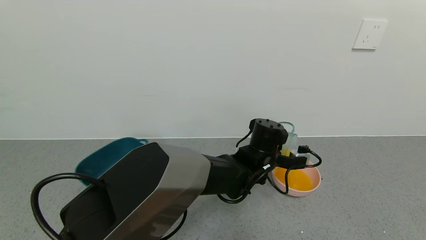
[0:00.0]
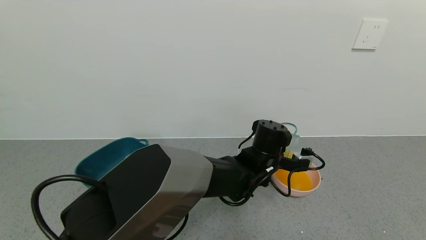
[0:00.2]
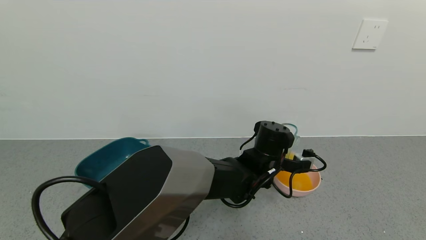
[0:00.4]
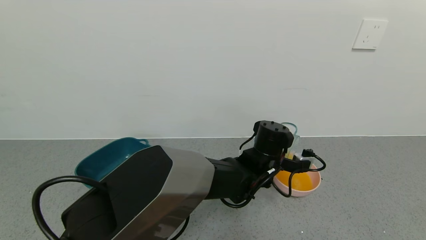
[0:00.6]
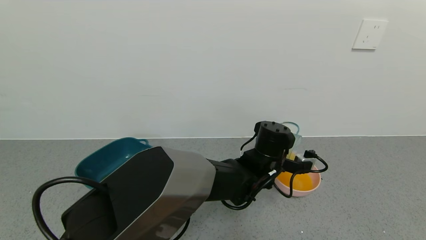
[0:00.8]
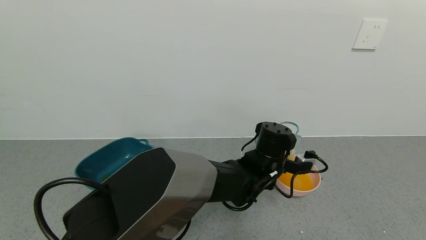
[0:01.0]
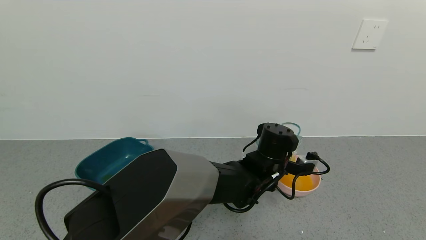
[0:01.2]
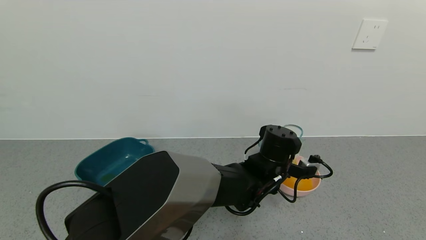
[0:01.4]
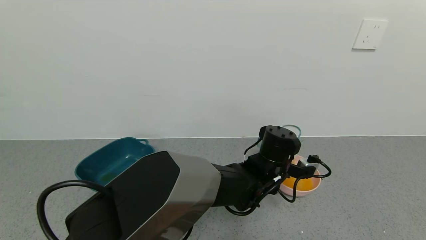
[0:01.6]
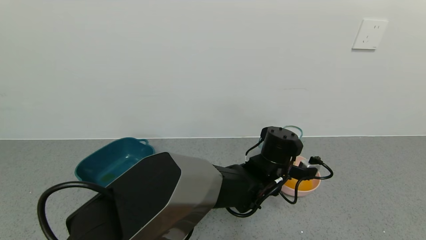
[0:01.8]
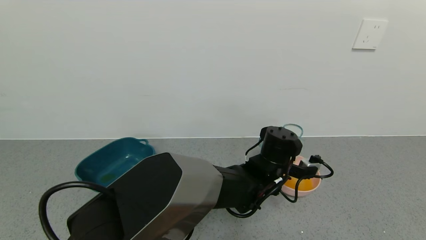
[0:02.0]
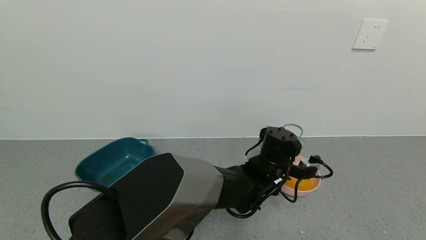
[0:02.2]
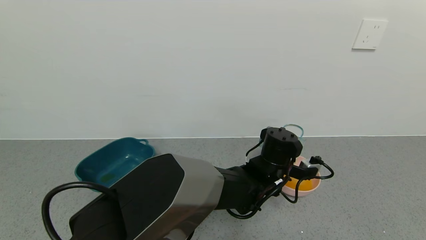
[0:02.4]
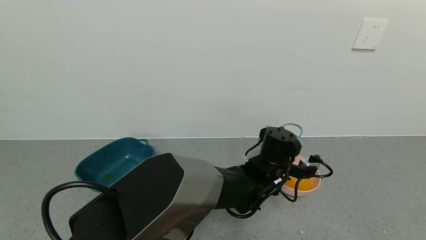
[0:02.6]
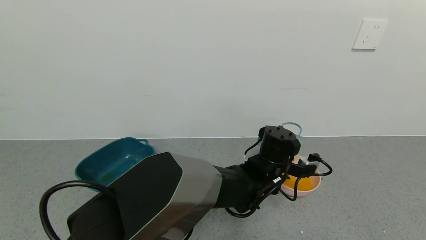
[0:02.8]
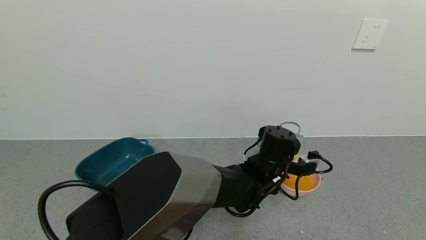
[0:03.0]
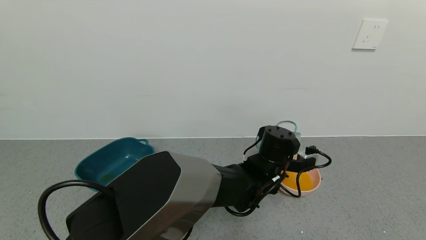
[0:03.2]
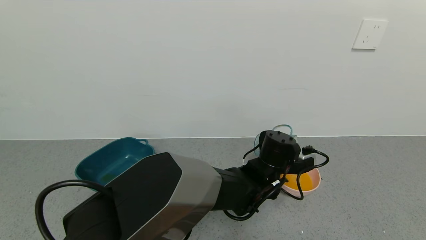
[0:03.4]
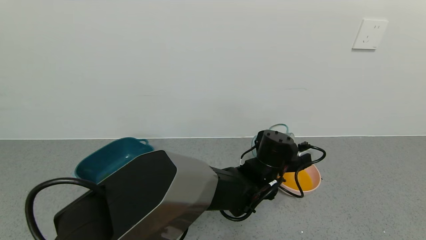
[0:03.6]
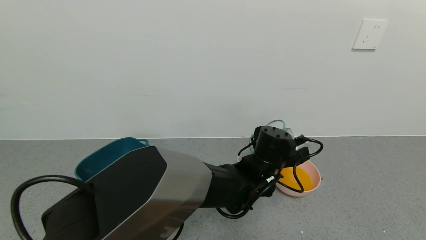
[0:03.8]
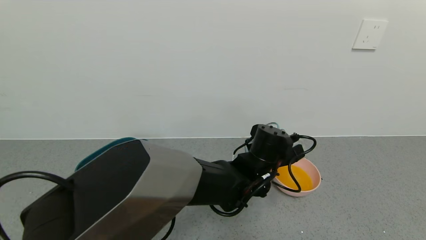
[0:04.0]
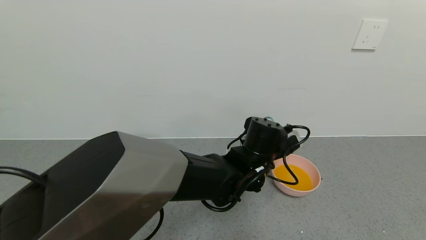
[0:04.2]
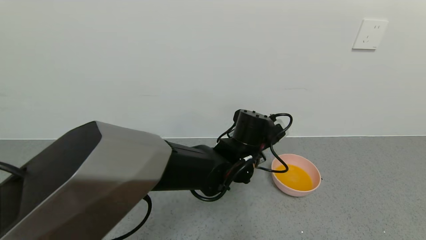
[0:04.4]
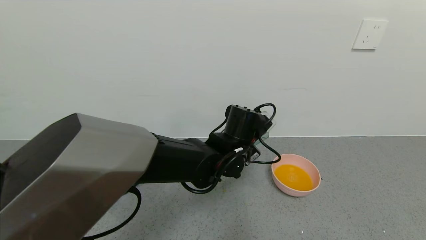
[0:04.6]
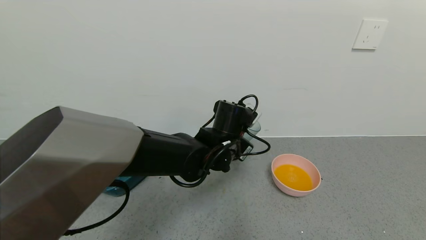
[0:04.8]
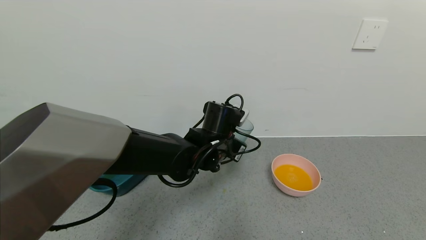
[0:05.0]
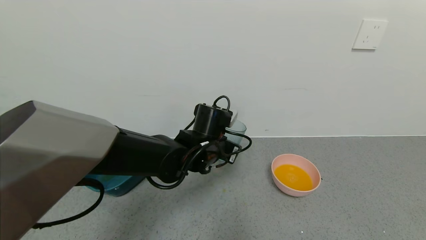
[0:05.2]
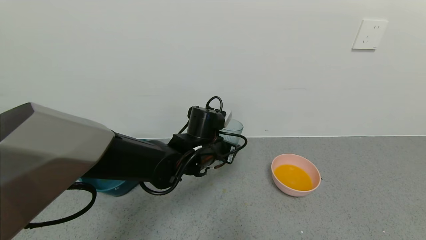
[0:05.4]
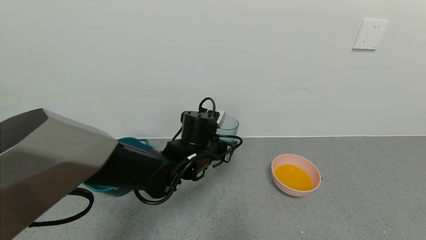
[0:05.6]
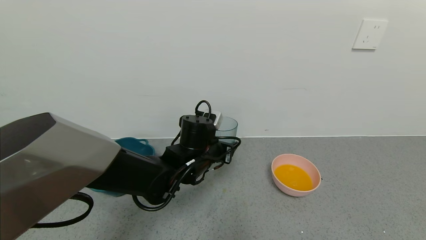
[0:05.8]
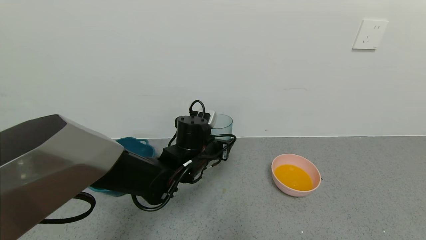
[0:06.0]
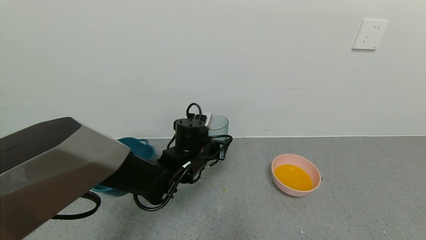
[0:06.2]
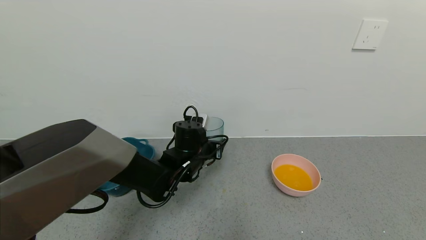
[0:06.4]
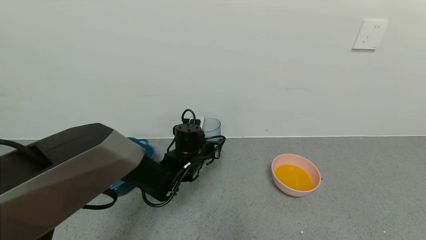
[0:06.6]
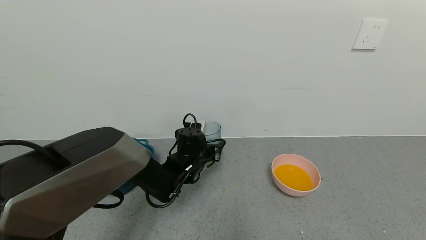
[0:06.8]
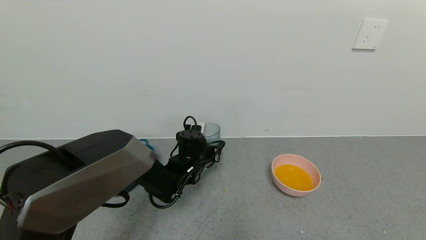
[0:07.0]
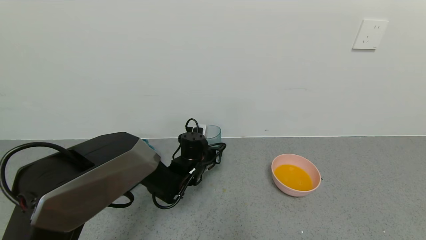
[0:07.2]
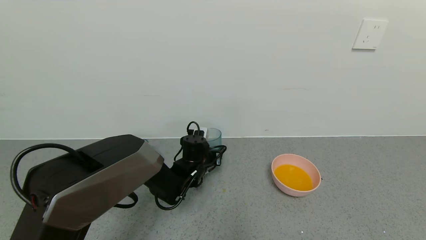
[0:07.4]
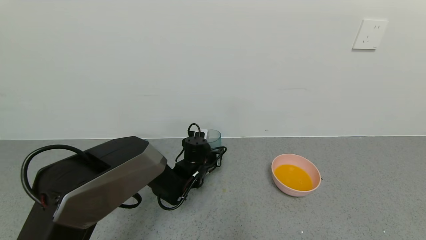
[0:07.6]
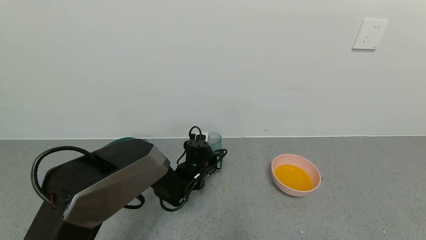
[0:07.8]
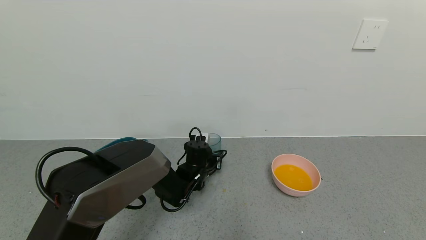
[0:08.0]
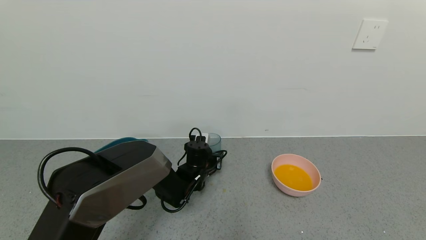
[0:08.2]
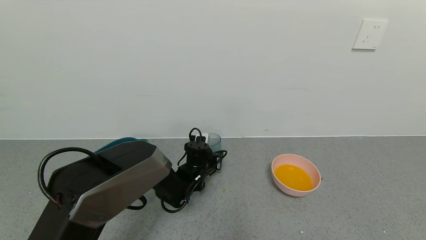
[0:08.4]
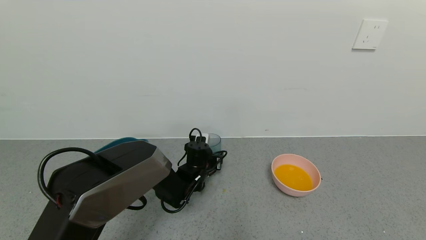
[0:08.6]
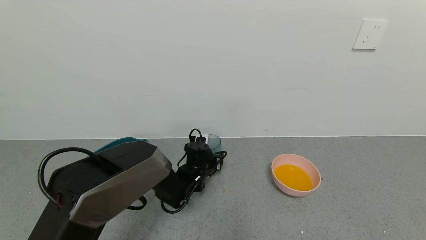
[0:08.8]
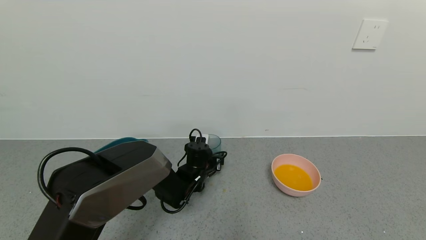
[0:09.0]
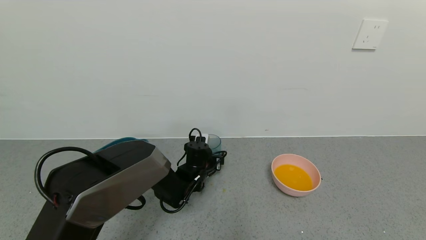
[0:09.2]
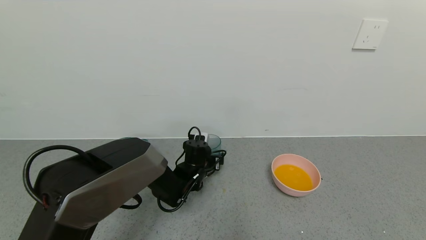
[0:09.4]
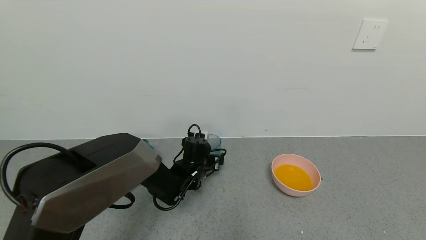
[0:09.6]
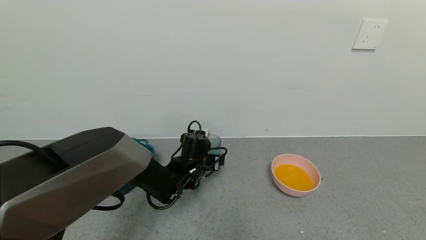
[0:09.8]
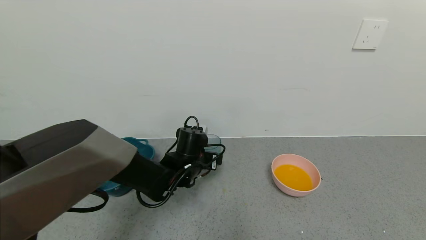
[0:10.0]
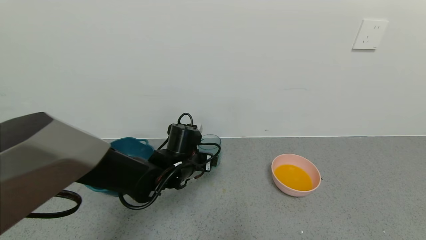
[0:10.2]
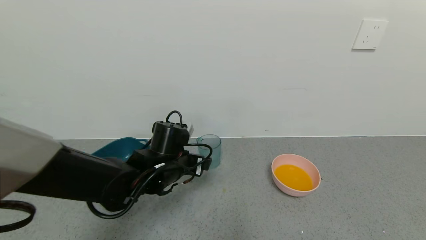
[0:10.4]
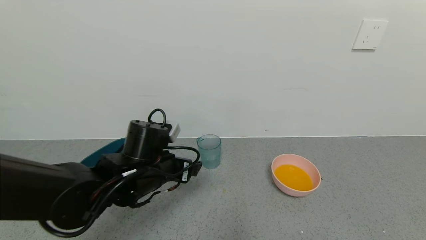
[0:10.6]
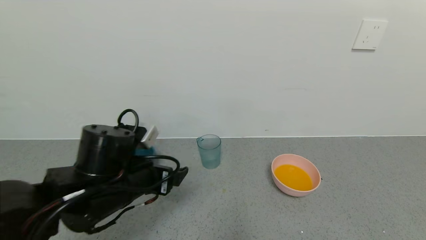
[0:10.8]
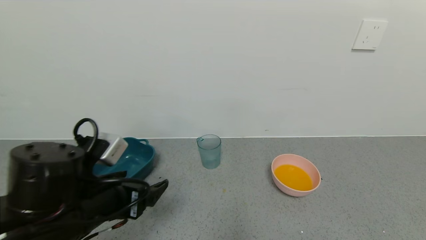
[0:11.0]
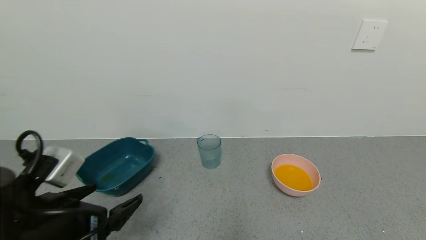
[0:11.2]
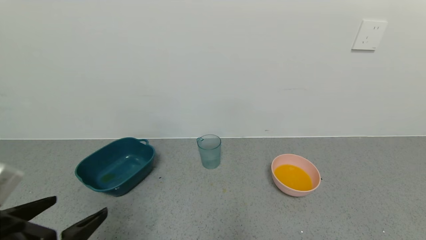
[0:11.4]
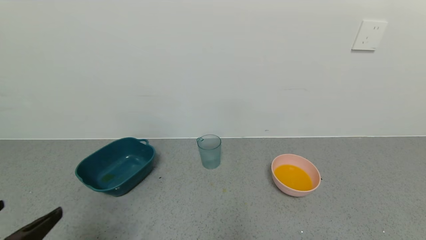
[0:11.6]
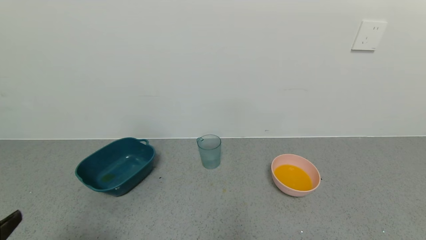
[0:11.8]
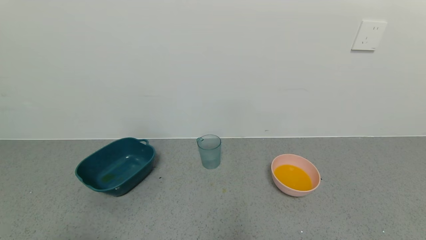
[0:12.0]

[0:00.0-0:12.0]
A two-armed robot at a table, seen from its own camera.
Task of the whole recording: use a gripper to pick up the cup and pour the liquid into a bowl or tray.
Step, 0.0 to 4.2 s: Pour the orange juice into the pink bowl with the left gripper.
Step, 4.4 to 10.2 s: Place the glass cup with the left gripper.
0.0 to 3.0 s: There are only small adjustments of the grippers.
3.0 to 4.4 s: The left gripper is displaced to the left by approximately 5 cm.
4.4 to 6.0 s: The left gripper shifts approximately 10 cm to the left.
6.0 to 7.6 s: The left gripper heads downward and forward, covering some 10 cm.
7.6 to 9.0 s: The left gripper opens up.
9.0 to 10.4 s: The left gripper is displaced upward and backward by some 15 cm.
10.4 to 12.0 s: The left gripper goes some 35 cm backward and to the left.

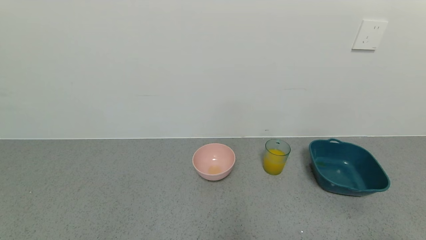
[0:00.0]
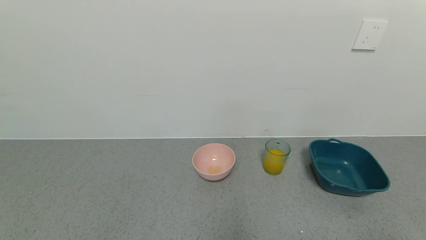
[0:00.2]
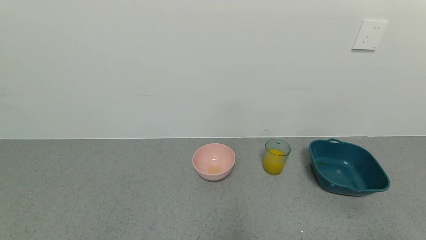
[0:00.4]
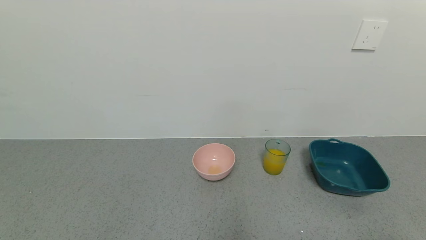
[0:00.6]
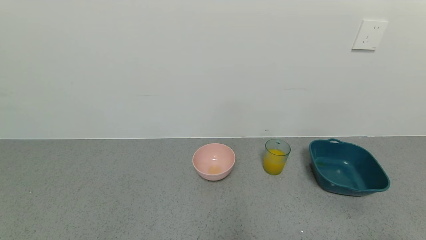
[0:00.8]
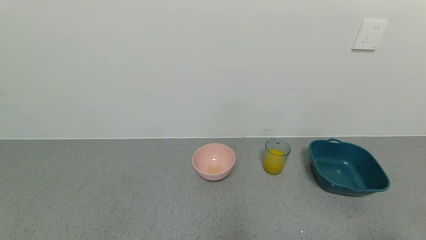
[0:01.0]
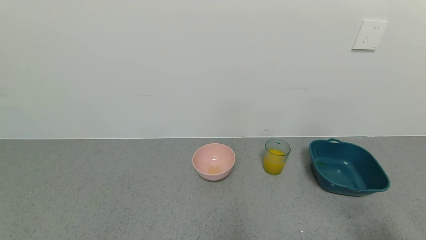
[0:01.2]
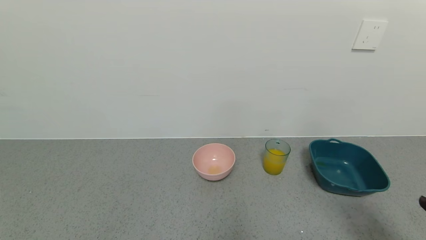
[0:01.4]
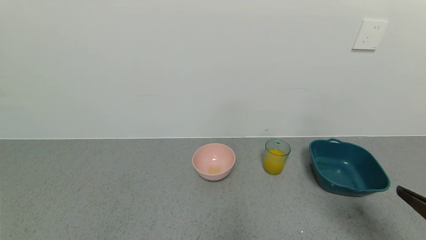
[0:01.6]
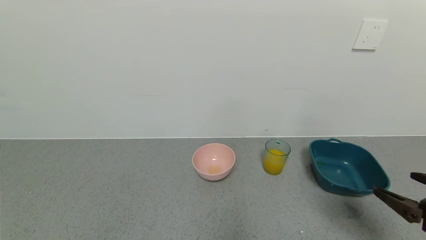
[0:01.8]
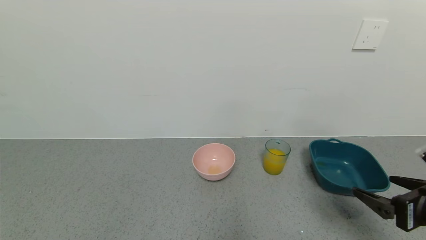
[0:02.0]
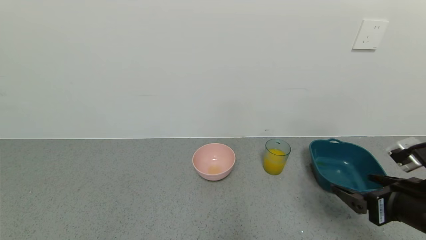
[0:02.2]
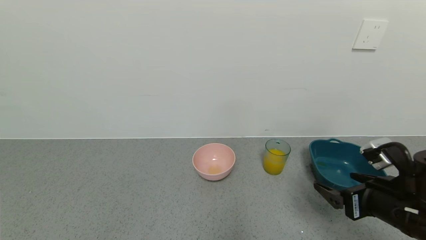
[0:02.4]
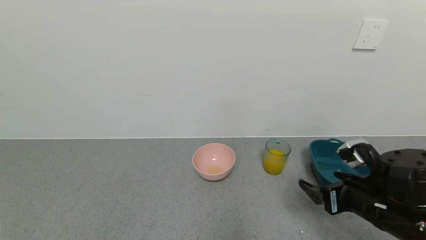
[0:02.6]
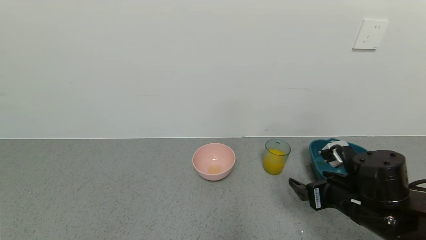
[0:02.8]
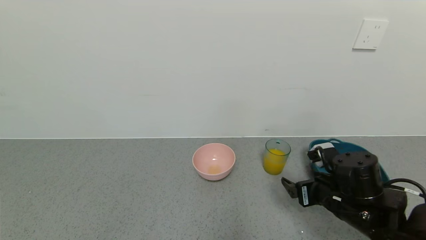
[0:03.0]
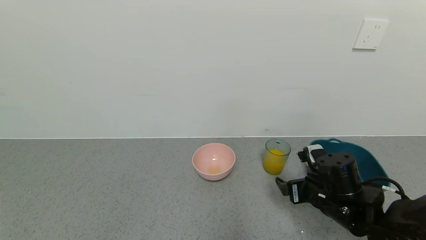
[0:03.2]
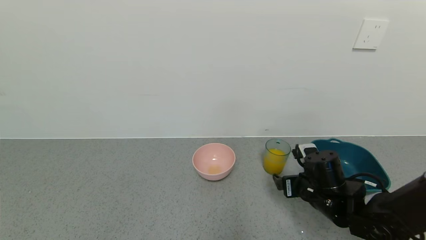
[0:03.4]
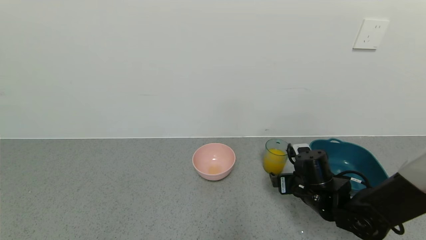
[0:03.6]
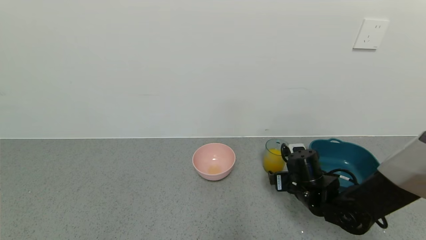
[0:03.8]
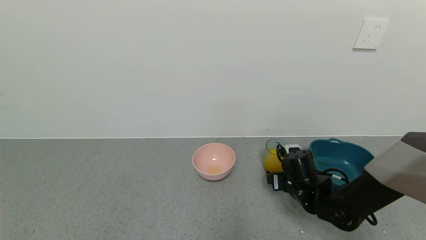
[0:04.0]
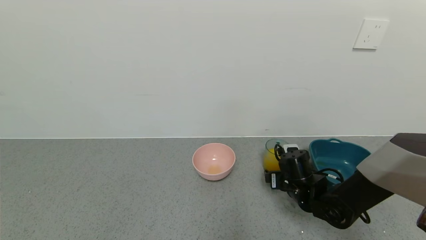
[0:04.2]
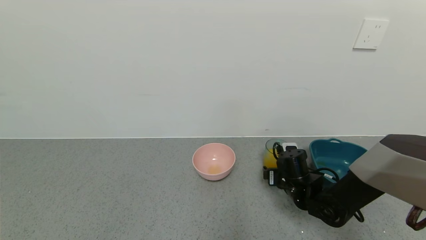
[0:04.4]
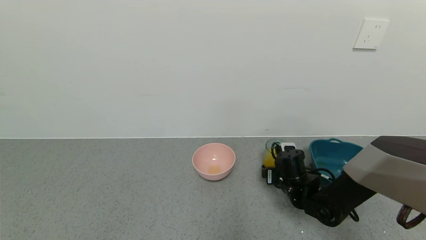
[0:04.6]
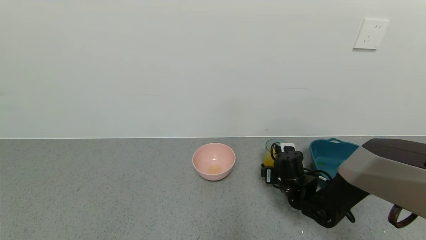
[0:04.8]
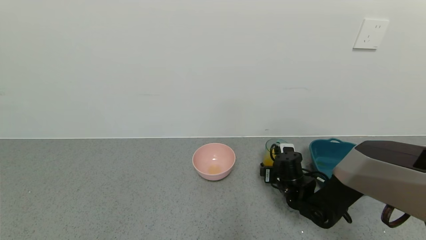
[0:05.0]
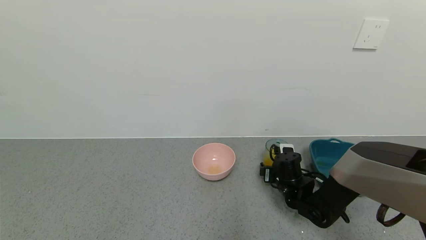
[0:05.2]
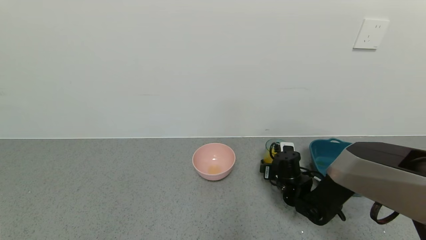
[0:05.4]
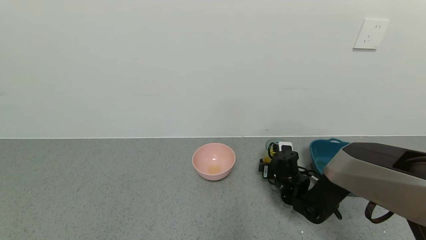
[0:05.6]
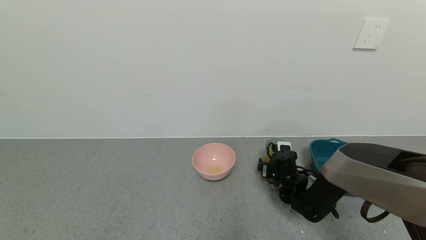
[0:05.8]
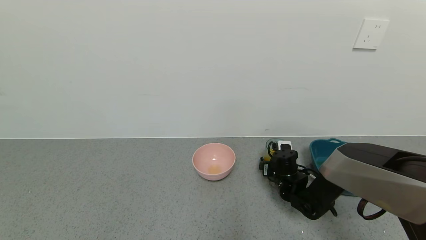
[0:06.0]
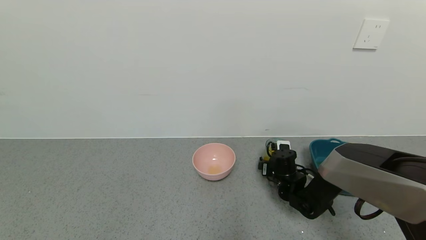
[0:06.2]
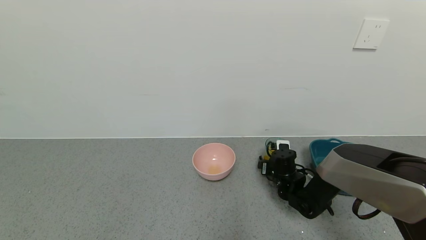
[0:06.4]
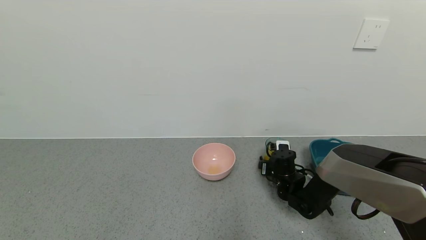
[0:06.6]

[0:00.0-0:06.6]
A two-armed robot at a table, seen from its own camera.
Task of the whole recording: use a gripper to pick up the cup and pour the liquid into a bowl or tray.
Step, 0.0 to 5.8 s: Pick up blue cup filled with orange juice with right gripper.
0.0 to 1.6 s: The right gripper travels forward by approximately 10 cm.
1.6 to 3.2 s: The right gripper heads forward, to the left and downward, covering roughly 25 cm.
3.2 to 5.0 s: The right gripper shifts roughly 10 cm forward and downward.
5.0 to 6.6 s: There are only small adjustments of the grippers.
